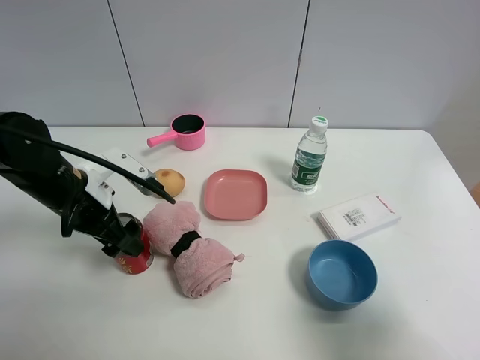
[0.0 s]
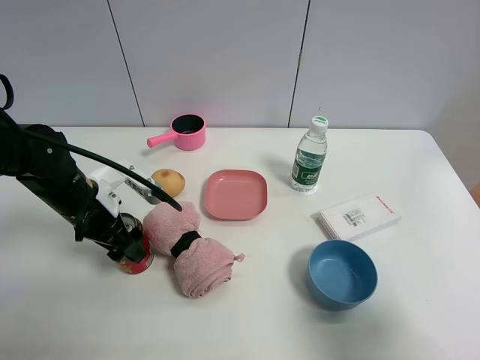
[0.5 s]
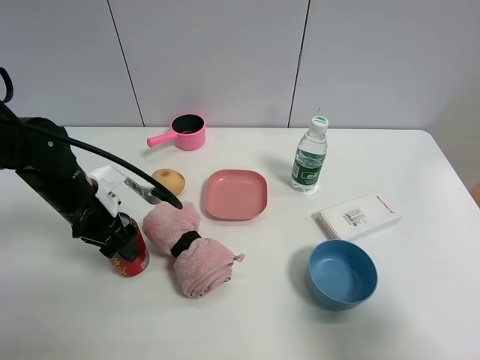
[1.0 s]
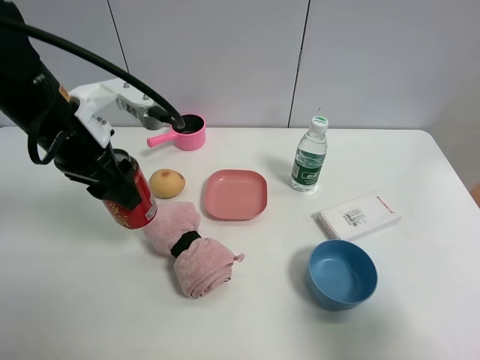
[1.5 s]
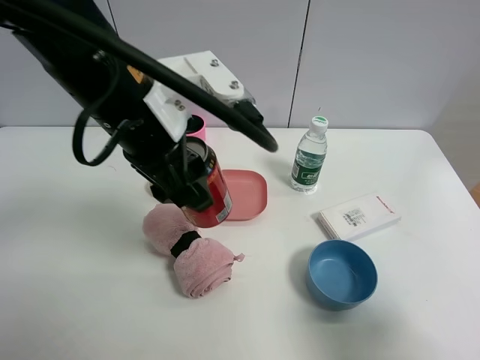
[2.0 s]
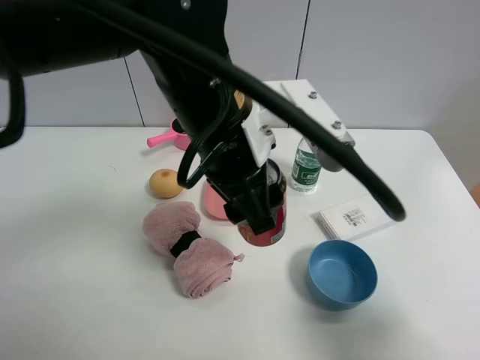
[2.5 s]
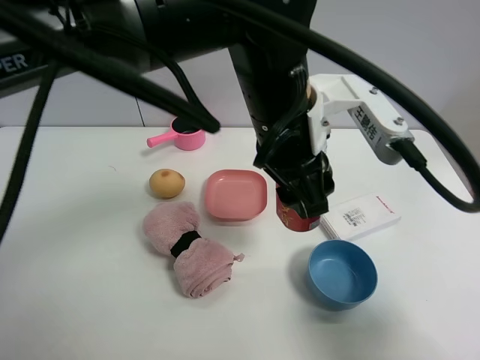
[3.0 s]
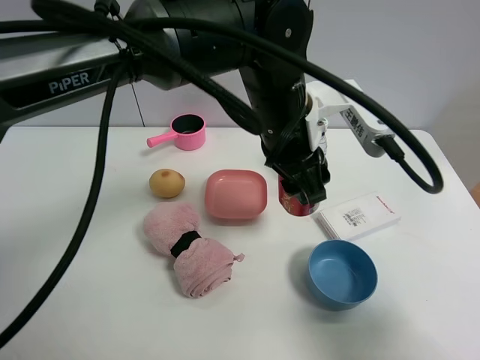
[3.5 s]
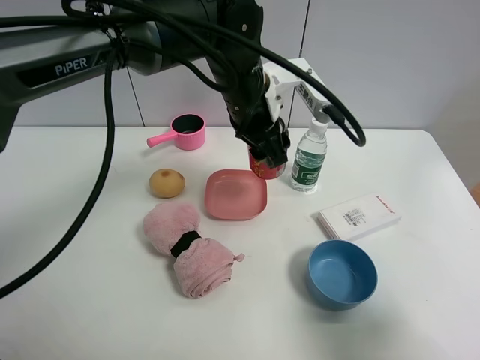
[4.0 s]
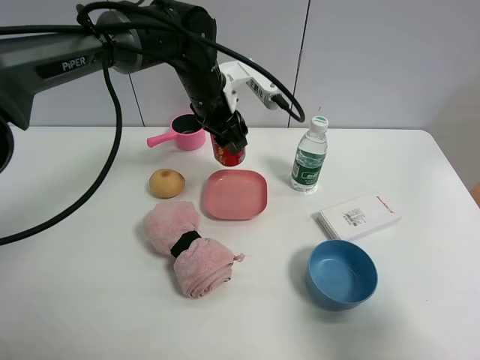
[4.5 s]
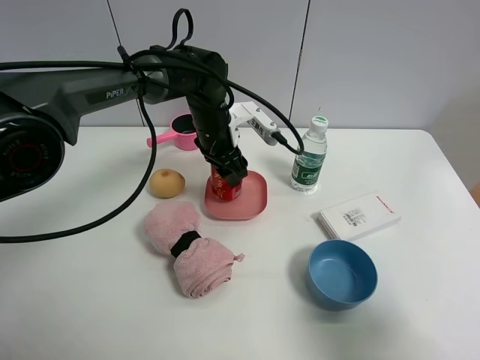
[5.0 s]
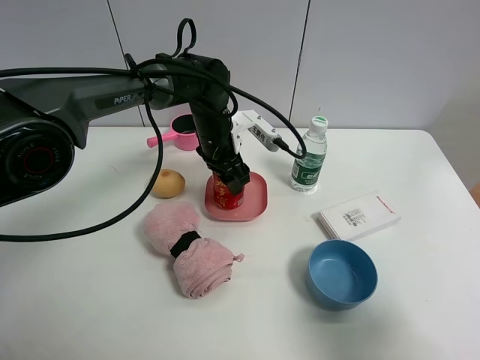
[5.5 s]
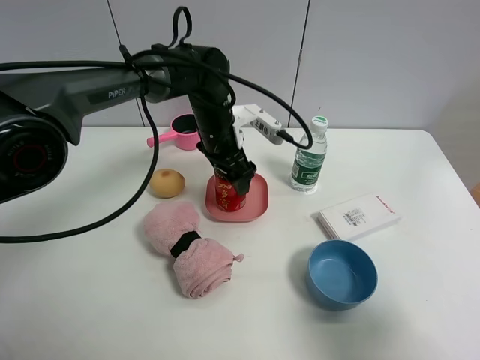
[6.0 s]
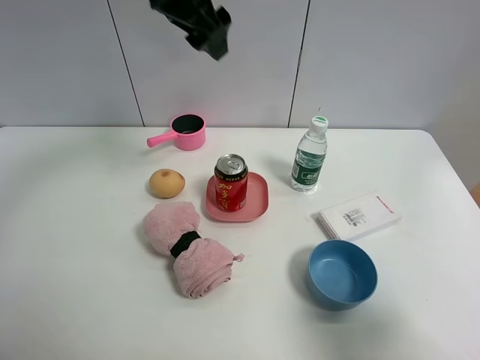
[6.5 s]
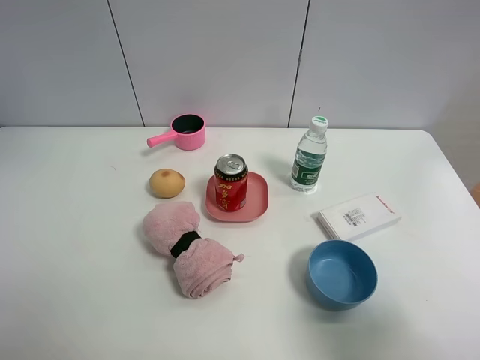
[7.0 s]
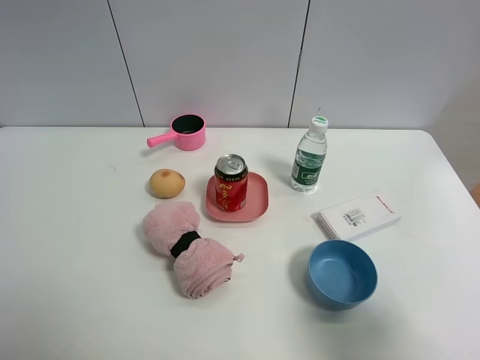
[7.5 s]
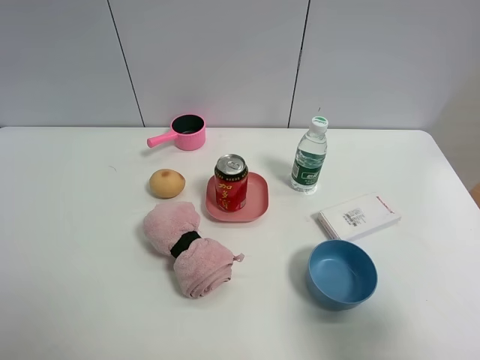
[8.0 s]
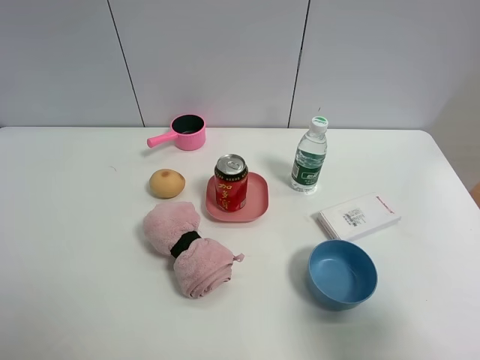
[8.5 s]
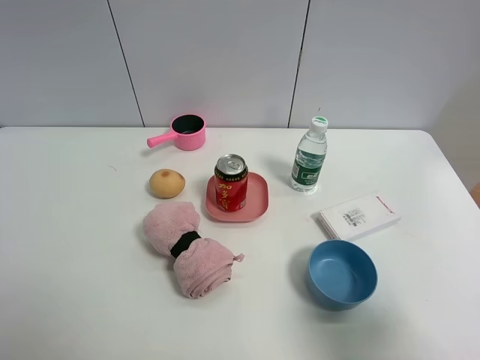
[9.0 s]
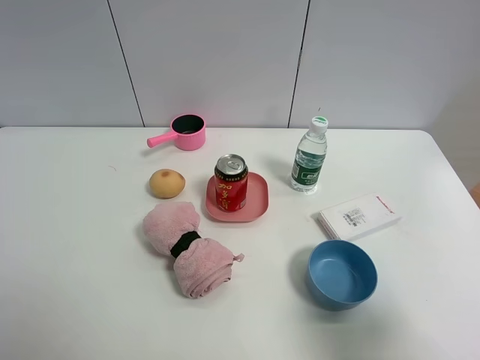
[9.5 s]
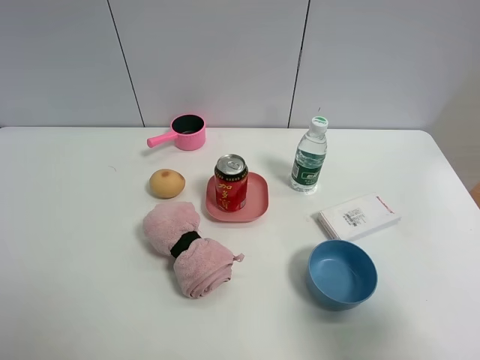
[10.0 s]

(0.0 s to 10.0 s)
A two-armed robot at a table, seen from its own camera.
Task of the whole recording: the gripper move the object.
Step, 1.0 s - 6.0 s: Place the Jia Duo Bao into the pink plate with the left gripper.
0.0 s - 2.0 s: The left gripper is displaced upward and to the right by some 20 cm, and closes up.
2.0 s - 4.0 s: The left gripper goes approximately 15 cm forward, to the right and downward.
4.0 s - 6.0 s: The left gripper travels downward and forward by approximately 10 cm, and opens its fingers.
6.0 s - 8.0 s: The left gripper travels backward, upward and to the left by some 60 cm.

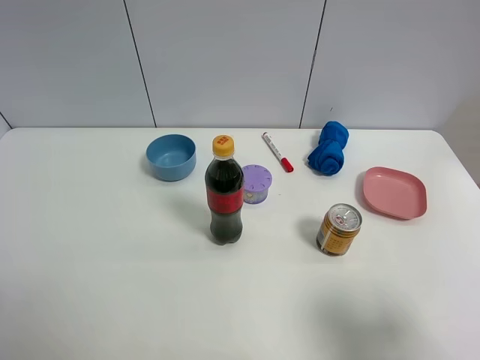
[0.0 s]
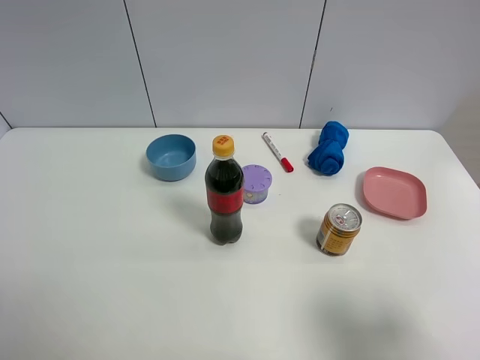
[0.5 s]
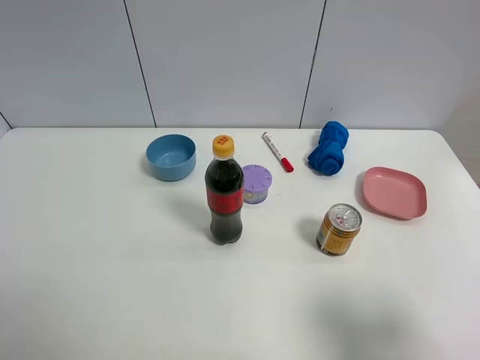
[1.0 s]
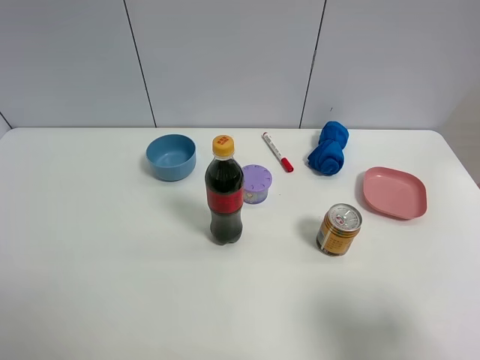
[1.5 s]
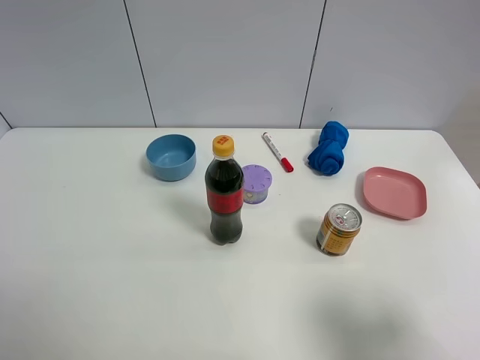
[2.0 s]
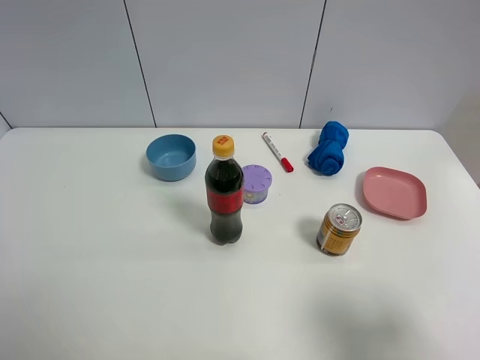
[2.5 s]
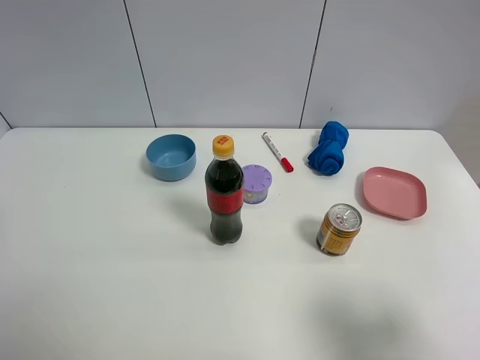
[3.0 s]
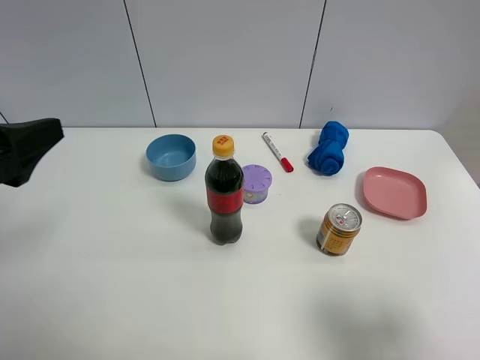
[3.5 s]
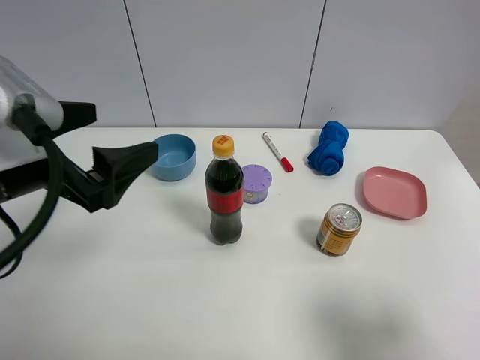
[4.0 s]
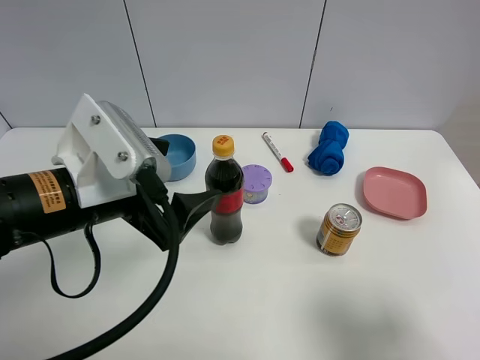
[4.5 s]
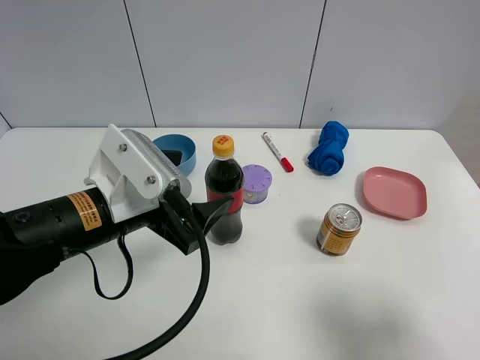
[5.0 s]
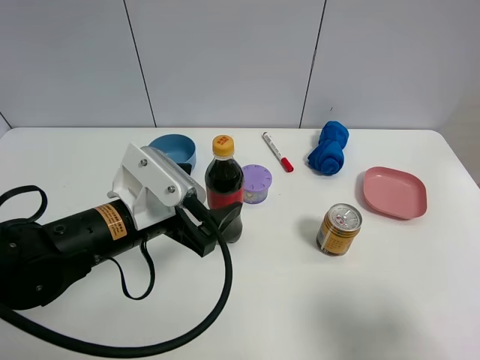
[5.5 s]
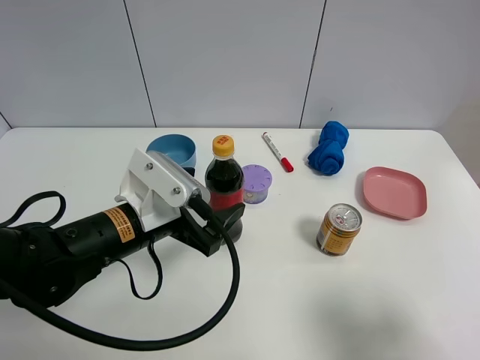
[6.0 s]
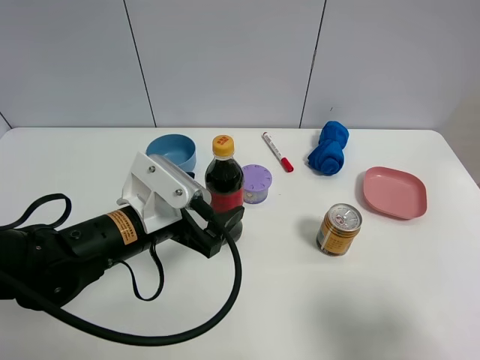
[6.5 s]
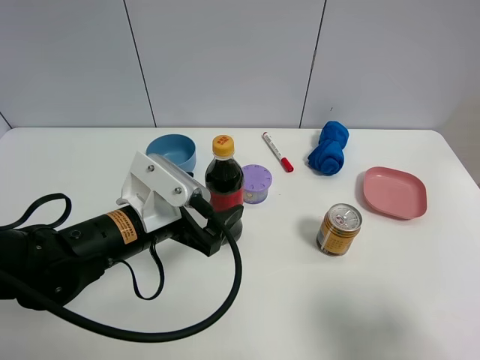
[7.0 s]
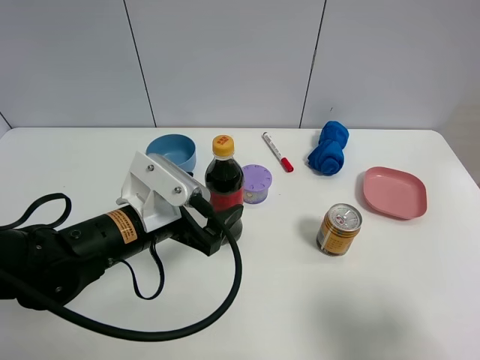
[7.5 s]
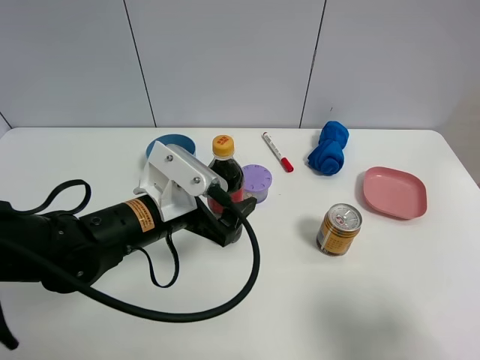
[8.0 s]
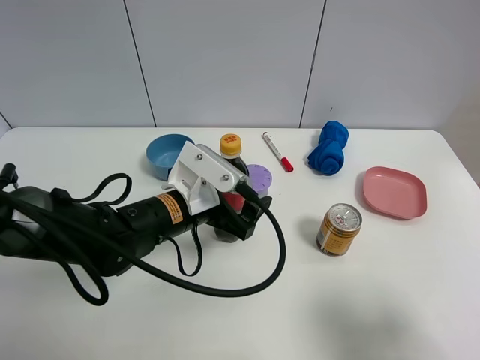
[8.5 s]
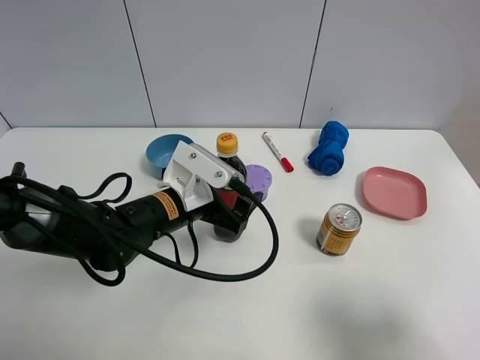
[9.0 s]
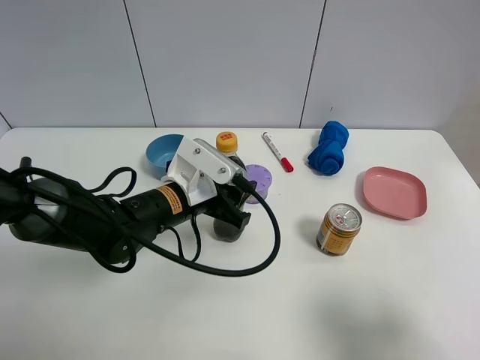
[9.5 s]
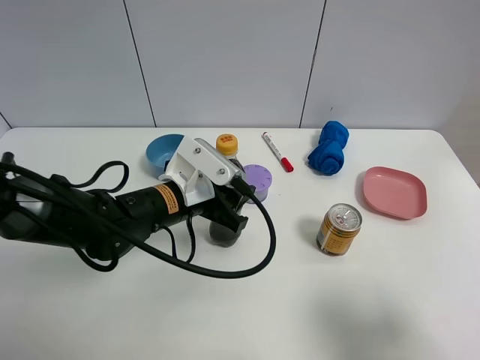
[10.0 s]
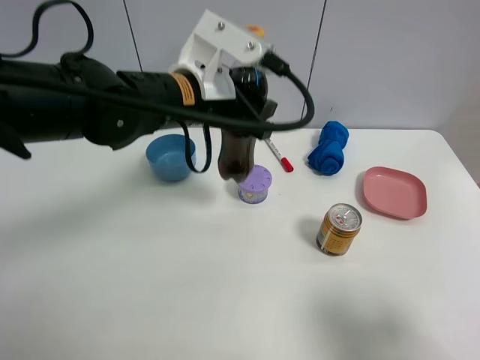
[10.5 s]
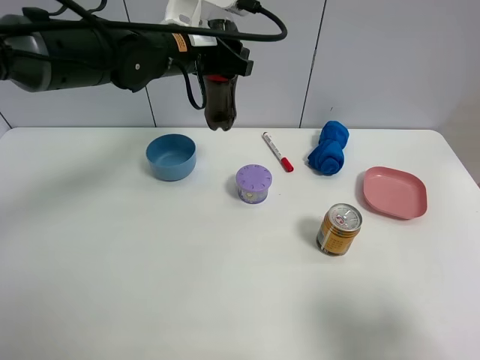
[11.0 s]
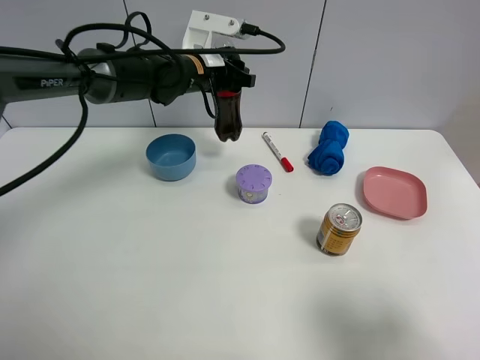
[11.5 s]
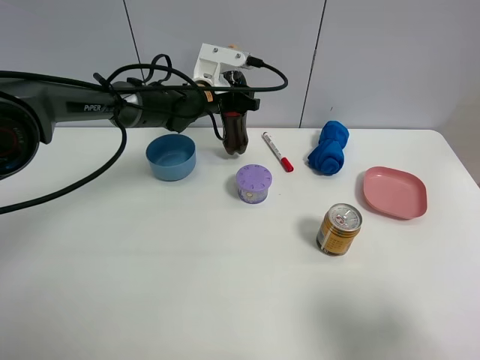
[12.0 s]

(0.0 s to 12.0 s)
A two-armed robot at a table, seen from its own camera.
Task of the whole recording: the gripper move the object.
Step, 0.0 s - 9.5 s: Grasp the coke with the left gripper.
0.0 s - 2.0 s: Both grippers stay about where they are.
2.0 s - 4.0 s: The left gripper goes some 20 cm forward and to the right.
4.0 s - 6.0 s: The left gripper travels downward and to the right by some 15 cm.
6.0 s - 8.0 s: There are only small adjustments of the grippers.
8.0 s - 10.0 s: The left gripper closes.
10.0 s - 12.0 s: The left gripper is displaced forward by about 20 cm.

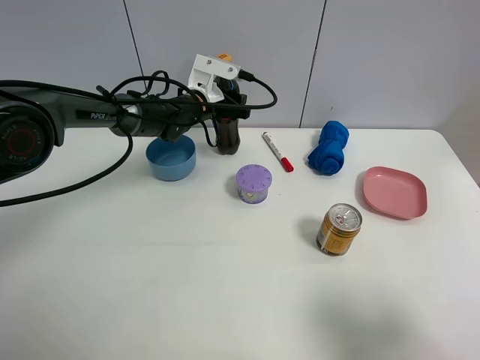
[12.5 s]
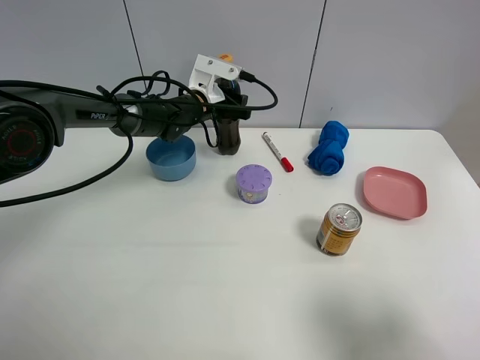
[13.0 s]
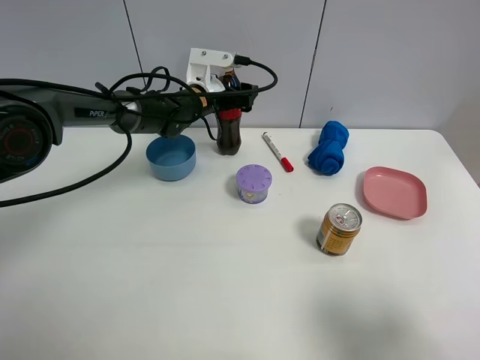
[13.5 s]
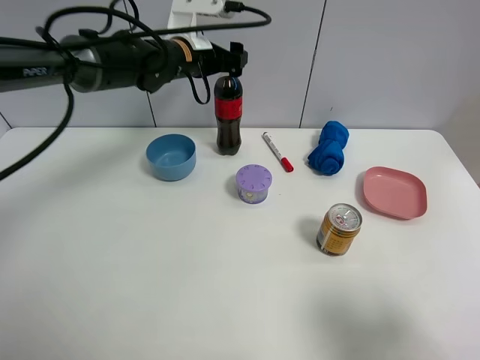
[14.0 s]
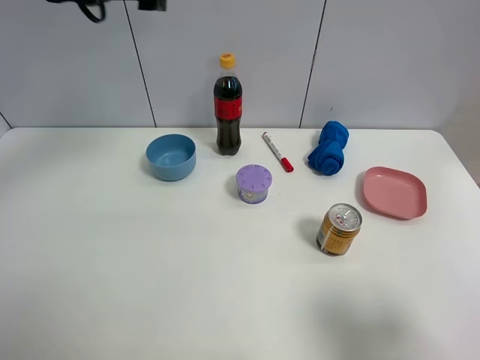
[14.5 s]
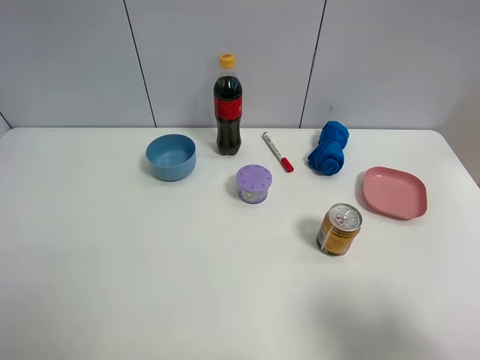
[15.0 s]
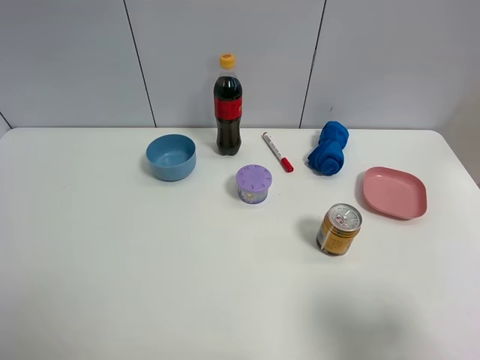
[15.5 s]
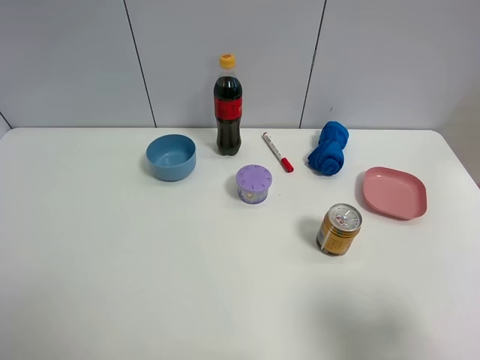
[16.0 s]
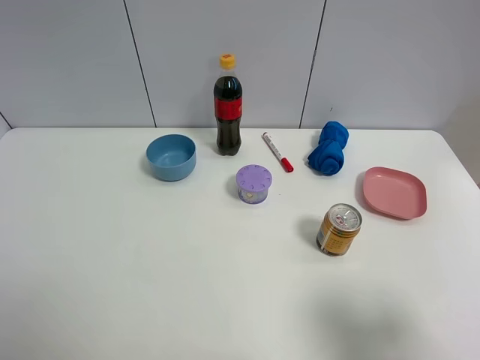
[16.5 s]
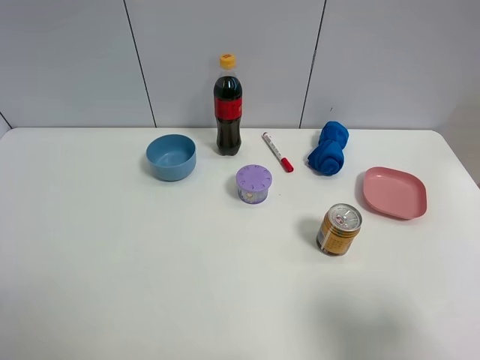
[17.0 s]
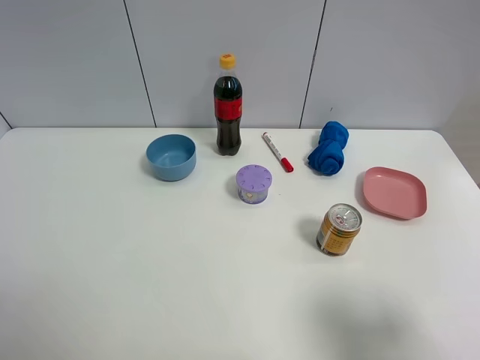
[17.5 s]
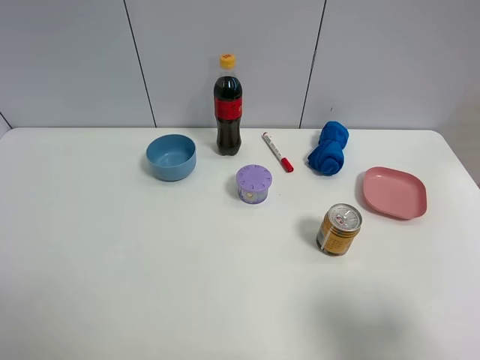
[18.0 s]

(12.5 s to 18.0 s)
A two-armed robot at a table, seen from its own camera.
Task of the whole recording: the gripper move the object.
12.5 s - 14.5 s: The left gripper moves upward, backward and to the left, approximately 30 cm, and opens.
14.5 s - 16.0 s: The left gripper is displaced backward by roughly 35 cm.
